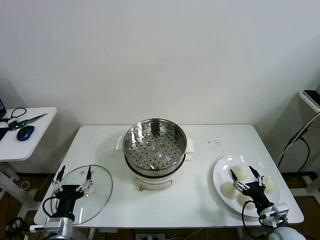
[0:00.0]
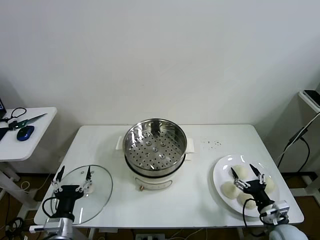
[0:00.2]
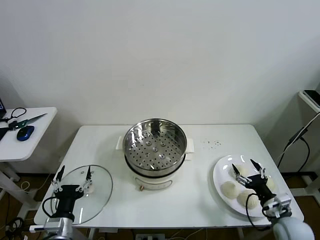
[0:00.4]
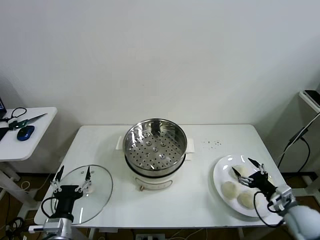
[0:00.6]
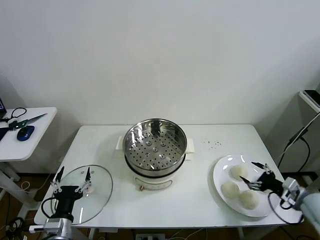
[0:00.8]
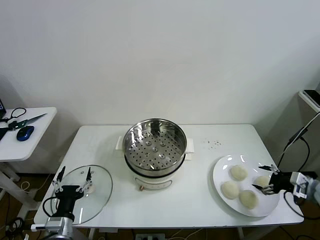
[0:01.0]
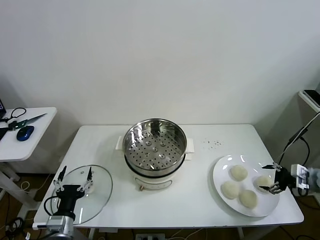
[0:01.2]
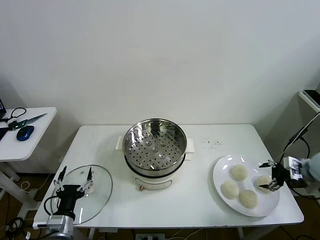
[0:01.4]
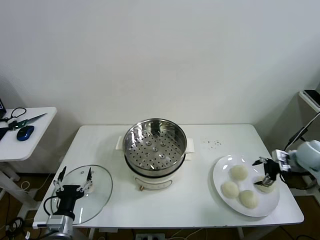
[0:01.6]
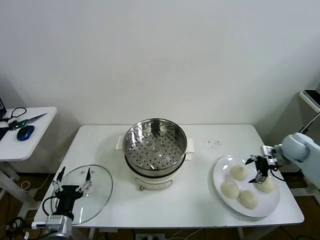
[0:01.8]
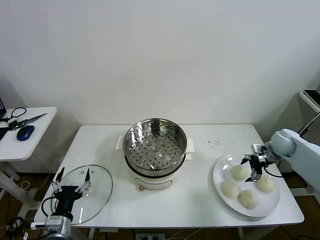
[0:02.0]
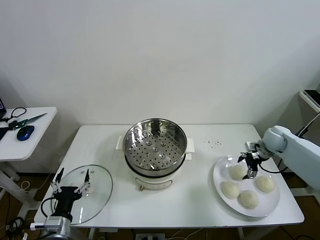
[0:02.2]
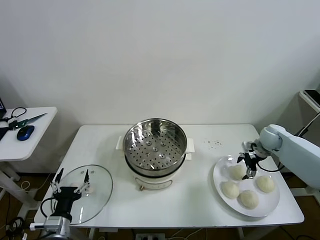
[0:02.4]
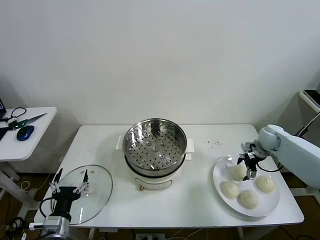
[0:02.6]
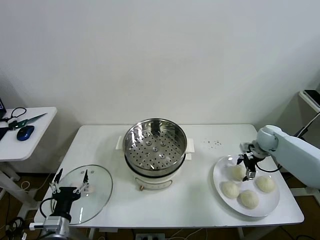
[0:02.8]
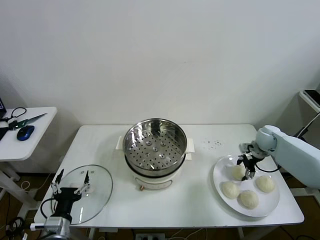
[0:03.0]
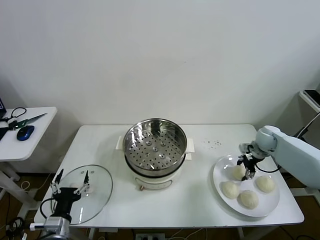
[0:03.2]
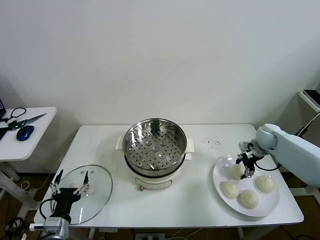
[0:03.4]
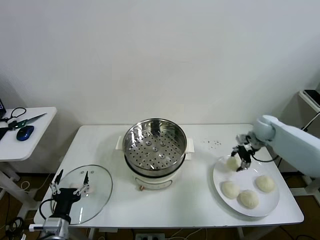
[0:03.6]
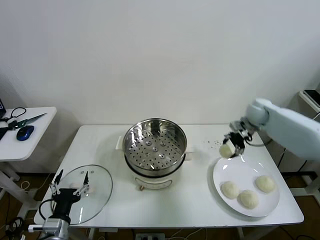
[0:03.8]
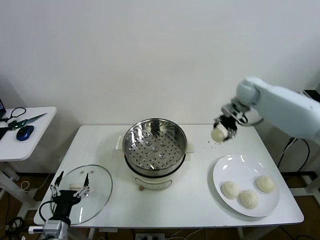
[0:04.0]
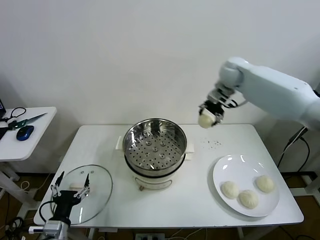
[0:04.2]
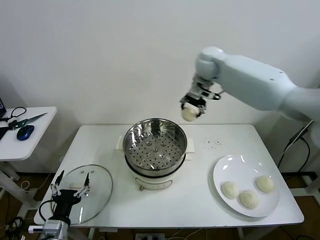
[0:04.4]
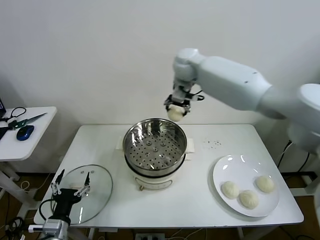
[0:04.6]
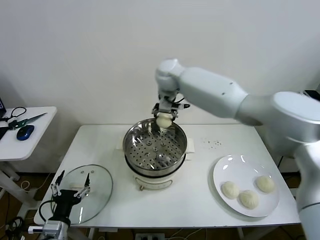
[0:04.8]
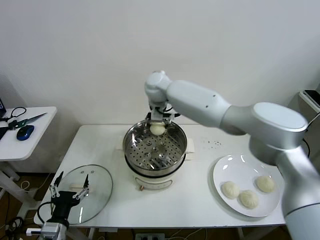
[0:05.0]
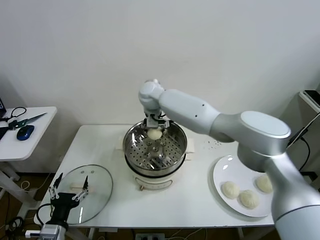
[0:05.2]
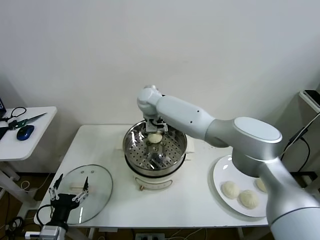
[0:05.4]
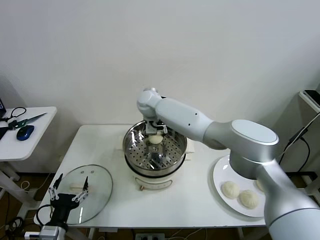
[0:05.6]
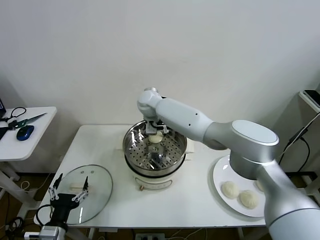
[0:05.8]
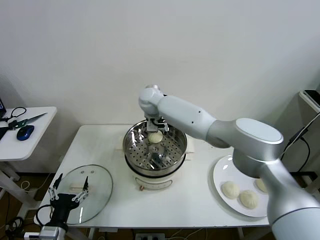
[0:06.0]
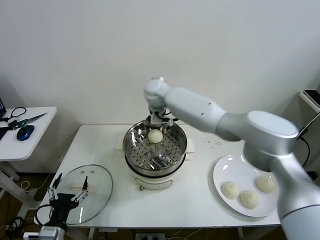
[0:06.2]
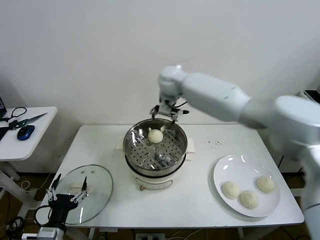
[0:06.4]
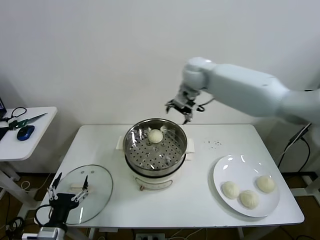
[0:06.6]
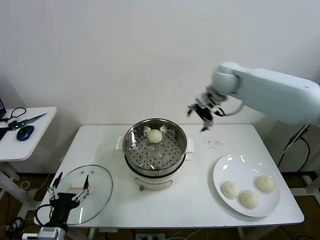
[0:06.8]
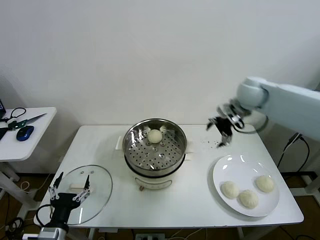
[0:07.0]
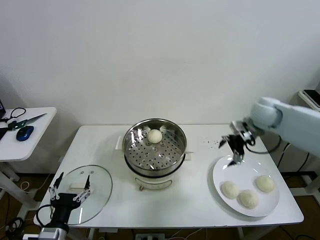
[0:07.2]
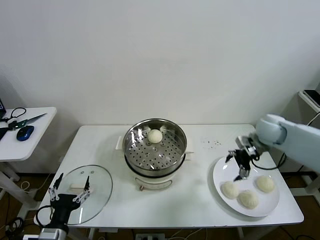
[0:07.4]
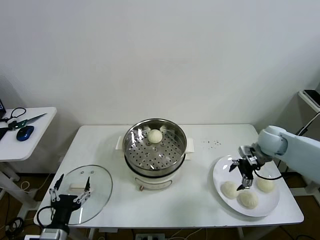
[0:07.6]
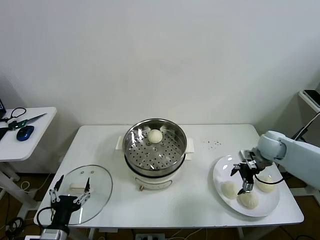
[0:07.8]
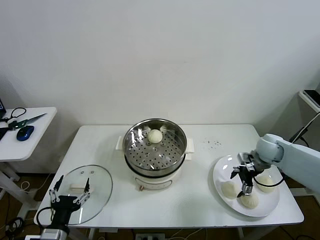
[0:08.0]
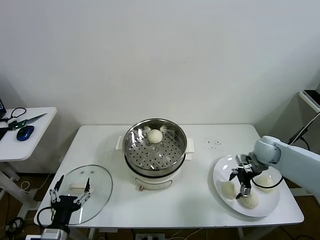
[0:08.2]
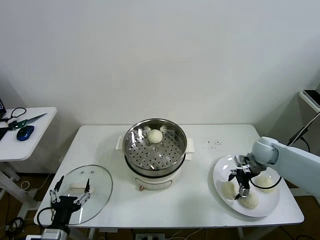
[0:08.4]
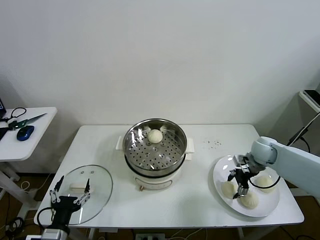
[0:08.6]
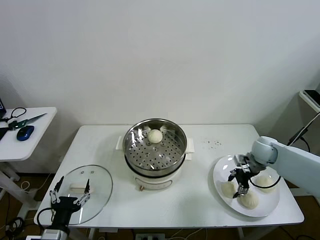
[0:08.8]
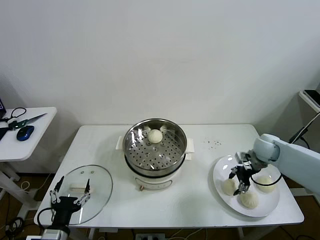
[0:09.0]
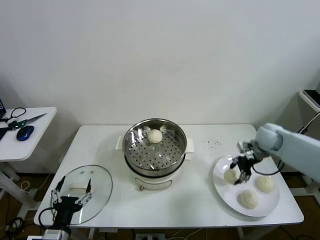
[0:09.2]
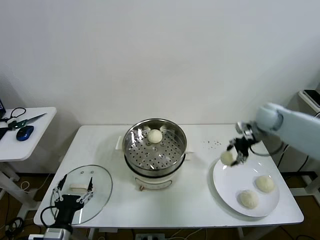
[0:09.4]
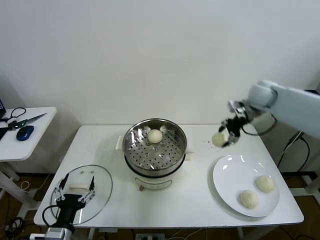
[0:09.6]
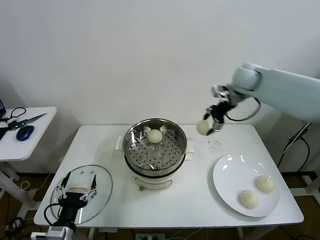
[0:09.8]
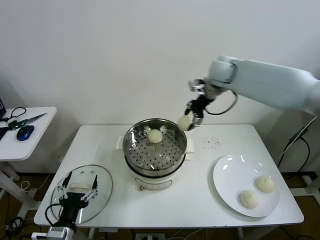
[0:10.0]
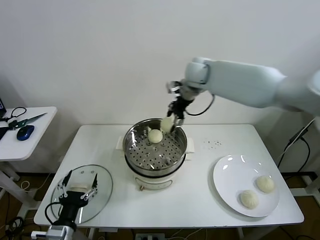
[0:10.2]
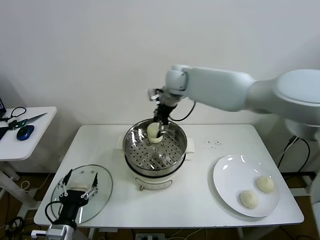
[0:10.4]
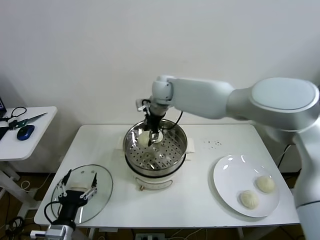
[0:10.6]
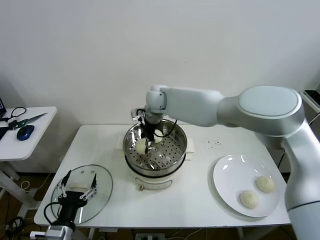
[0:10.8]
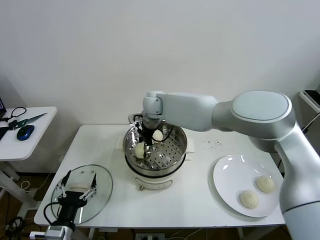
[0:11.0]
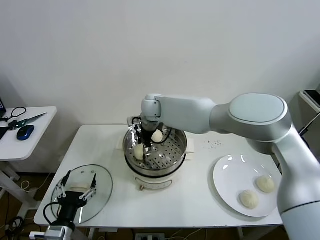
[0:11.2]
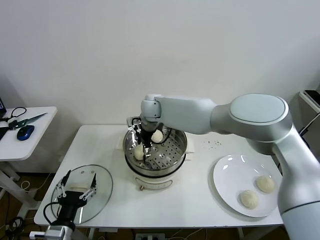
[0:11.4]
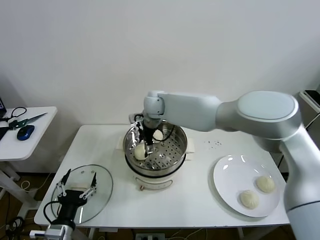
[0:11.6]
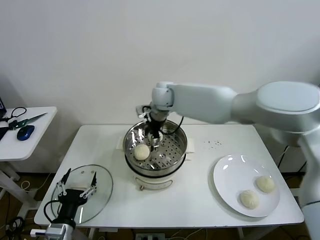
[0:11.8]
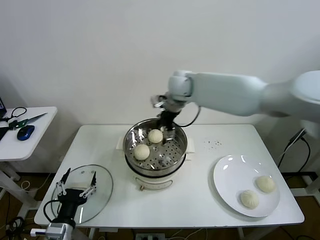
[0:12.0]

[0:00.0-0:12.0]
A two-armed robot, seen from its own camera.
Task of the whole recording: take steamed baozi put them in steamer then cover it.
Step, 0:00.0 to 0:03.2: Grasp the baozi in the plate with right gripper.
Step, 0:03.4 to 0:05.8: Place the baozi on the steamer with right gripper.
Step, 0:06.0 to 0:08.8: Grasp the baozi in the plate with right gripper.
Step, 0:09.0 to 0:11.4: Place the baozi on the steamer with right gripper.
0:01.6 to 0:03.0: The right gripper heads forward and to the left, covering about 10 cm, and closes.
0:03.0 to 0:04.4: The right gripper heads to the left and upward, covering approximately 40 cm.
0:04.4 to 0:06.0: The right gripper goes roughly 20 cm to the left and downward, and opens.
0:06.0 to 0:07.6: The right gripper heads to the right, covering roughly 40 cm.
0:07.6 to 0:09.0: The right gripper closes its fingers.
0:09.0 to 0:10.4: The right gripper shifts some 40 cm to the left and upward.
0:10.4 to 0:12.0: The right gripper heads to the right, covering approximately 5 cm, and opens.

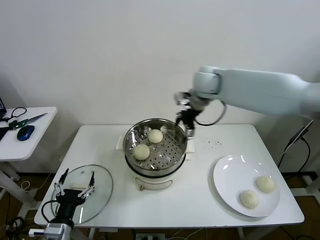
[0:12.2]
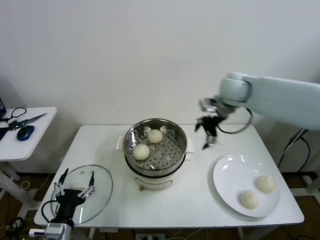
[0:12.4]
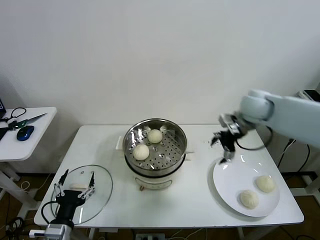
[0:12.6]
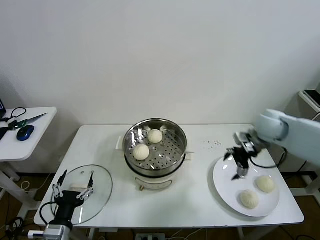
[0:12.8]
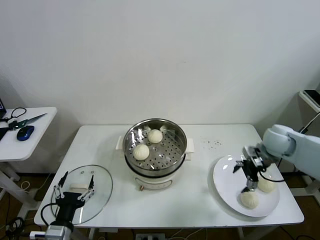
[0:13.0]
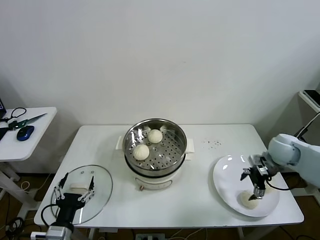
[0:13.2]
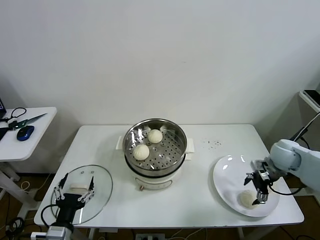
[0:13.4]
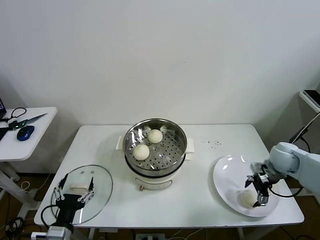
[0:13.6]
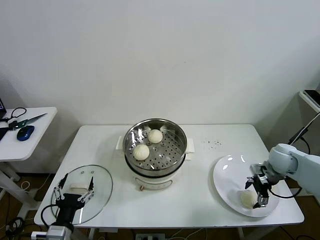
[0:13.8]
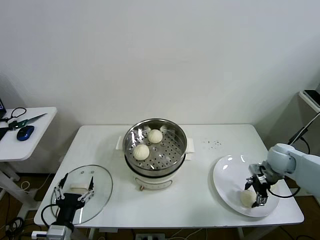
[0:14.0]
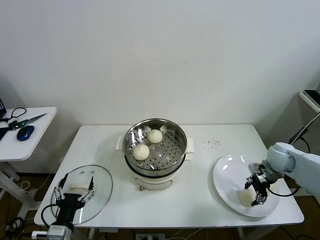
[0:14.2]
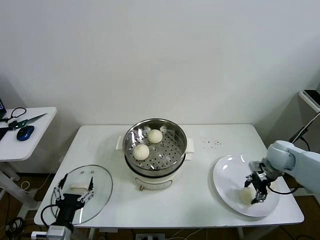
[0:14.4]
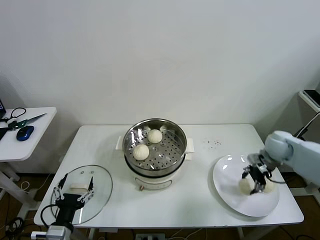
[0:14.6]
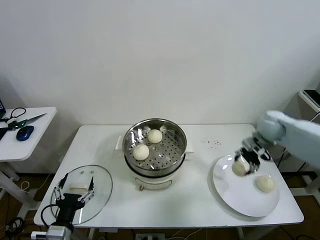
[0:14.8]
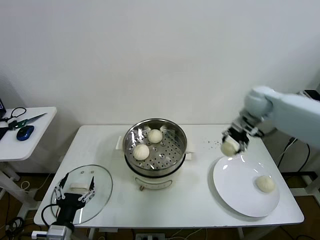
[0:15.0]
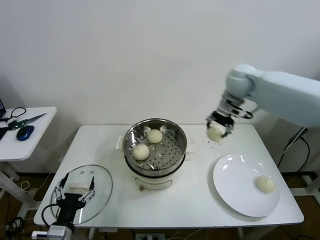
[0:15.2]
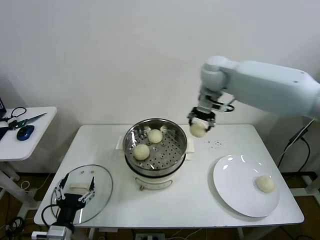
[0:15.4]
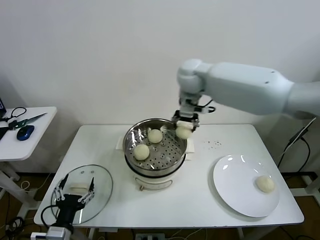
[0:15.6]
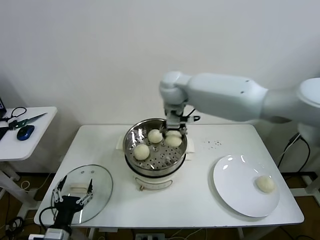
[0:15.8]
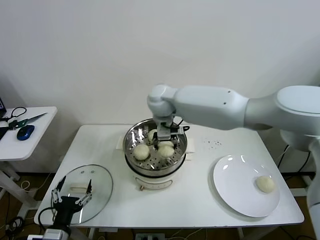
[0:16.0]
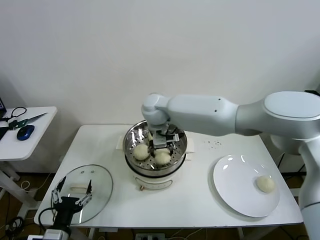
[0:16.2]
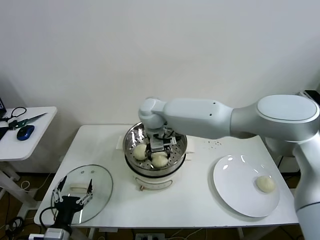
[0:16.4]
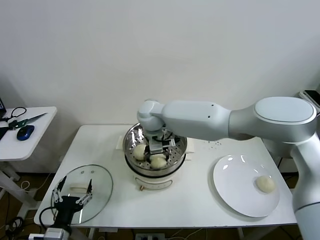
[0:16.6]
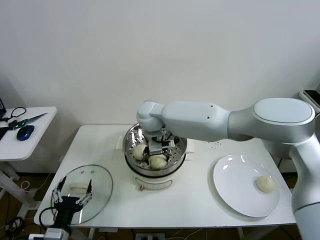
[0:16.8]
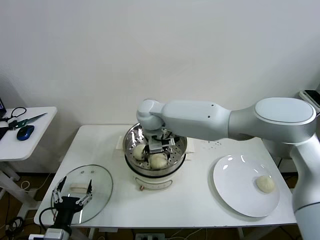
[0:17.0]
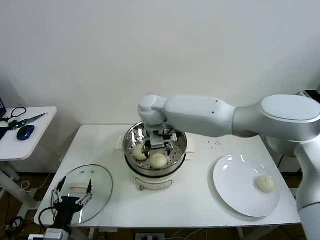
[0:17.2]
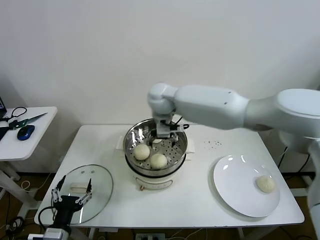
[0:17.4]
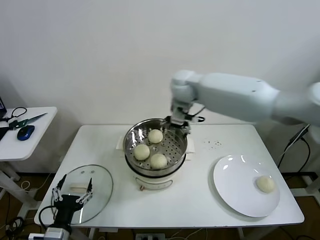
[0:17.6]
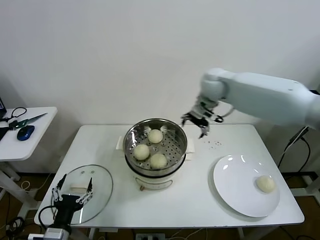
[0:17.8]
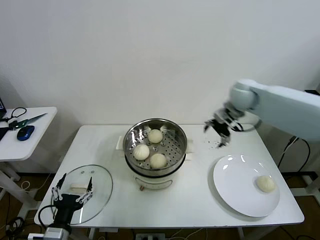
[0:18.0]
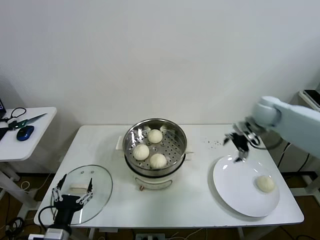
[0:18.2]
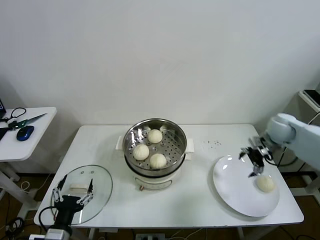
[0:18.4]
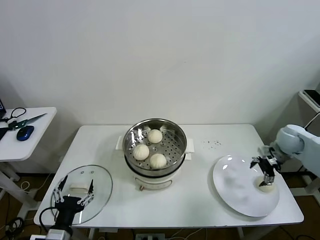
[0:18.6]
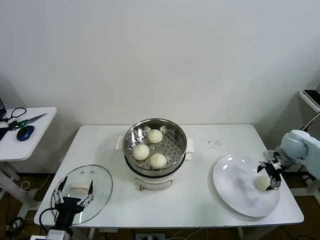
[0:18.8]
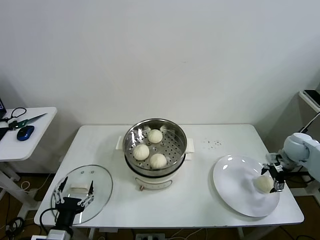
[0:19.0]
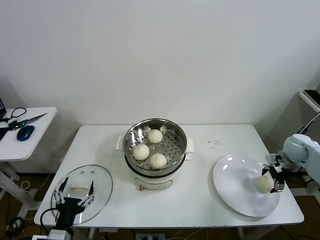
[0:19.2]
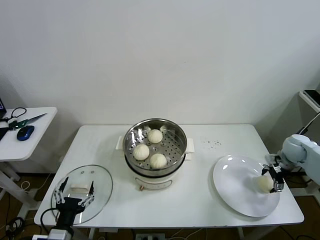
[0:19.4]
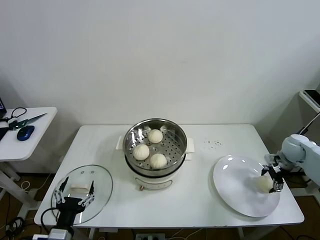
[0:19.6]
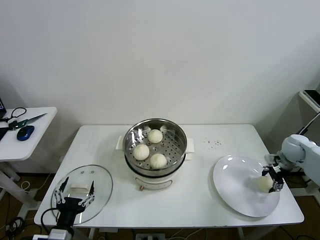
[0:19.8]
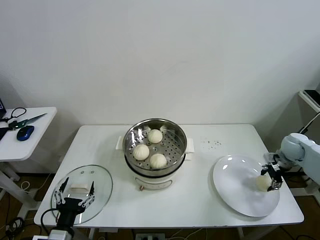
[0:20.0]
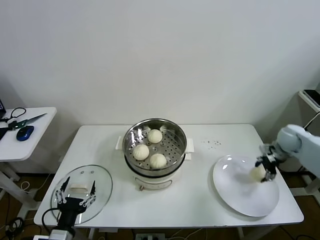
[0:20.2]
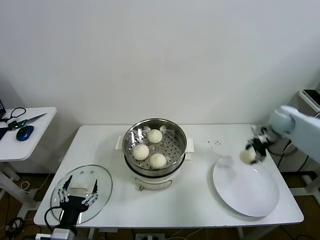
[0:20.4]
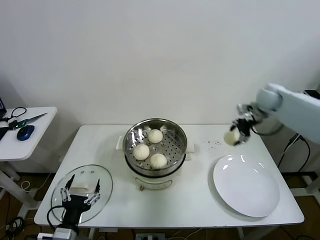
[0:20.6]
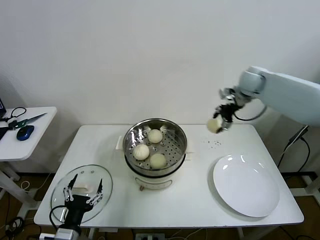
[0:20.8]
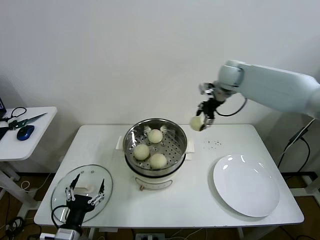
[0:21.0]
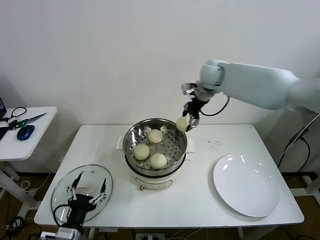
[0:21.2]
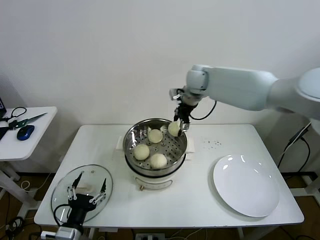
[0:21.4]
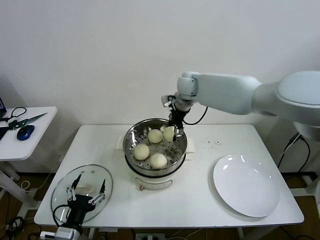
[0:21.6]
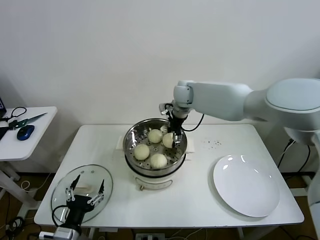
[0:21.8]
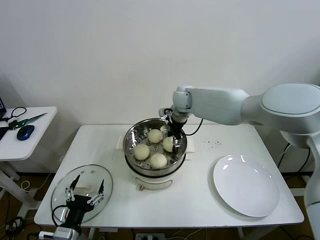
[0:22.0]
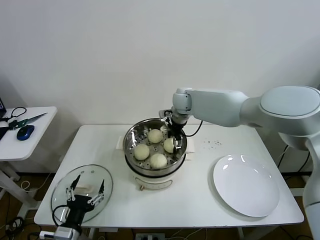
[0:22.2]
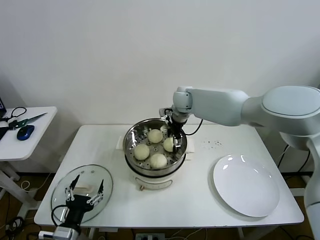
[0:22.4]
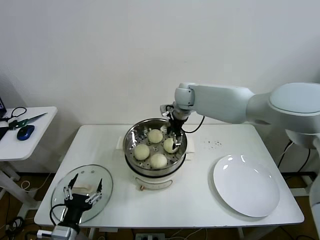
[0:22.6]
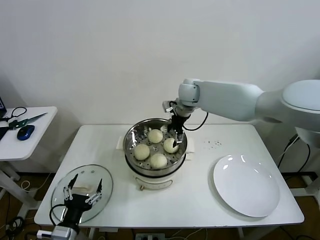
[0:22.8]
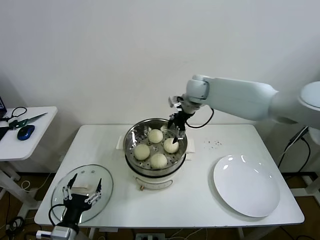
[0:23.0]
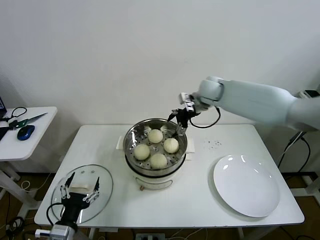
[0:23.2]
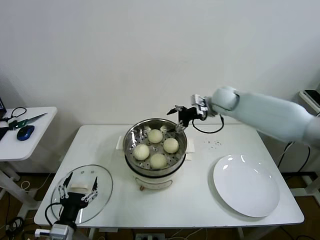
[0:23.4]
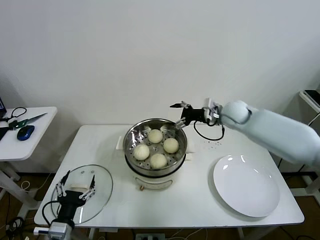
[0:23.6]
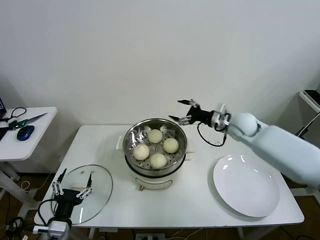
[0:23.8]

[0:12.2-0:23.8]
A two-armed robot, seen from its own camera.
Task of the whole recording: take steamed baozi put them in steamer then cover it.
Step, 0:12.2 to 0:14.0: Grasp the baozi in the plate with right gripper.
Step, 0:14.4 to 0:17.0: Place the baozi on the steamer with right gripper.
Step, 0:17.4 to 0:19.8: Grasp the baozi in the plate with right gripper.
Step, 0:20.2 to 0:22.6: Place the baozi on the steamer with right gripper.
0:12.2 to 0:13.6: The right gripper shifts about 35 cm to the right, downward and backward.
0:13.6 to 0:15.0: The right gripper goes approximately 25 cm upward, forward and to the left, and closes.
0:15.0 to 0:16.6: The right gripper travels to the left by some 35 cm.
0:16.6 to 0:18.0: The right gripper goes some 30 cm to the right, and opens its fingers.
0:18.0 to 0:19.4: The right gripper shifts roughly 30 cm to the right and downward.
0:19.4 to 0:21.0: The right gripper is displaced to the left, upward and forward by roughly 40 cm, and closes its fingers.
0:21.0 to 0:22.4: The right gripper travels to the left and downward by roughly 15 cm, and opens its fingers.
0:22.4 to 0:23.8: The right gripper moves to the right and backward, roughly 20 cm.
